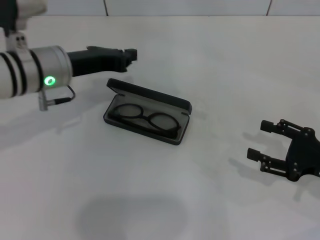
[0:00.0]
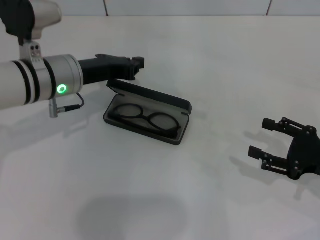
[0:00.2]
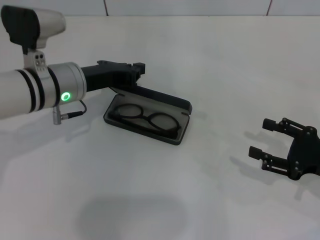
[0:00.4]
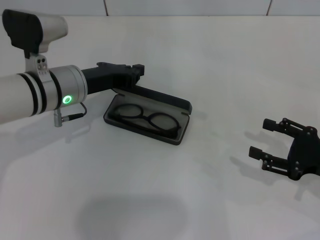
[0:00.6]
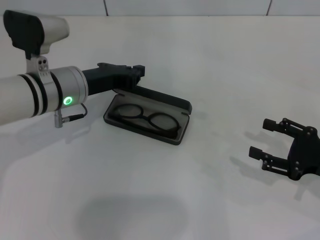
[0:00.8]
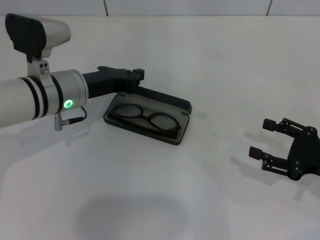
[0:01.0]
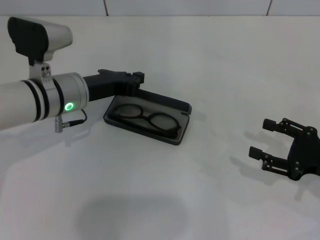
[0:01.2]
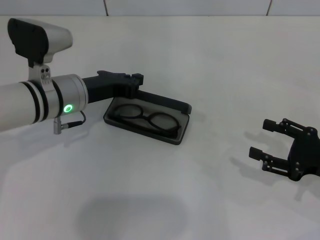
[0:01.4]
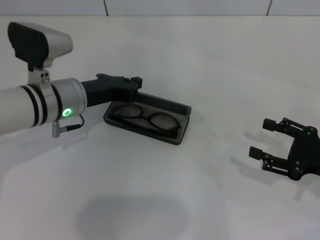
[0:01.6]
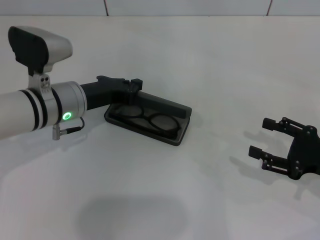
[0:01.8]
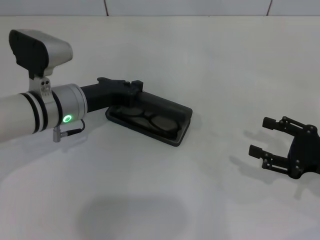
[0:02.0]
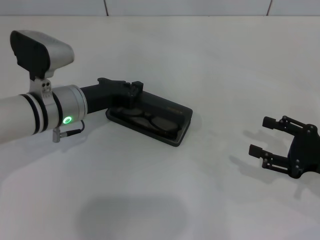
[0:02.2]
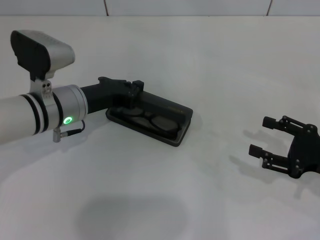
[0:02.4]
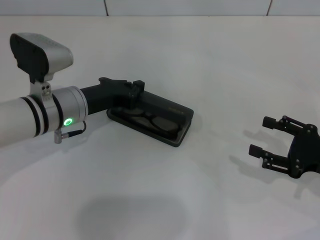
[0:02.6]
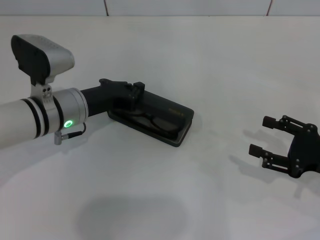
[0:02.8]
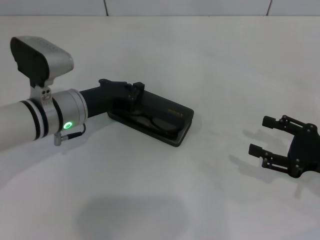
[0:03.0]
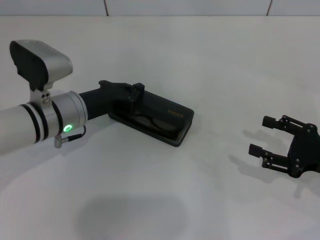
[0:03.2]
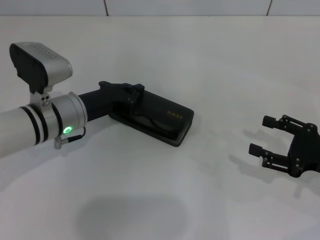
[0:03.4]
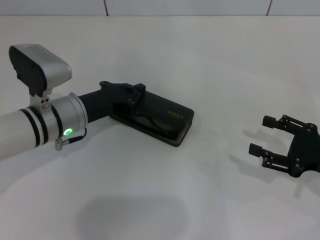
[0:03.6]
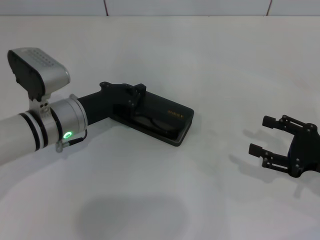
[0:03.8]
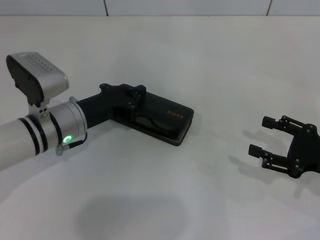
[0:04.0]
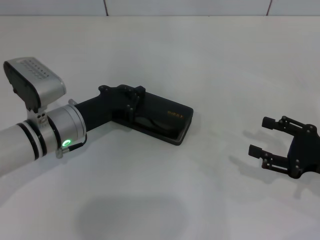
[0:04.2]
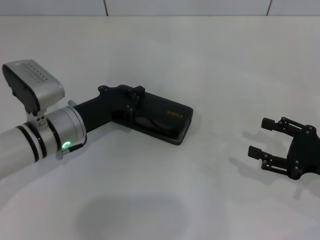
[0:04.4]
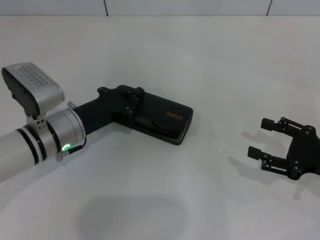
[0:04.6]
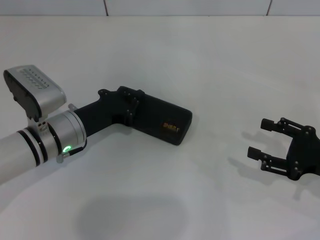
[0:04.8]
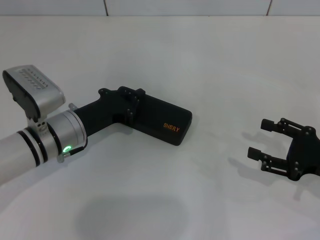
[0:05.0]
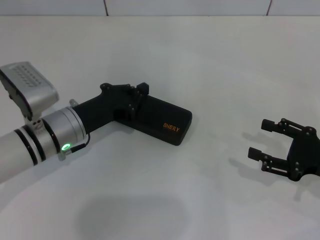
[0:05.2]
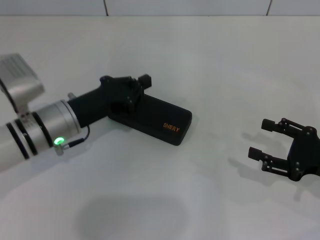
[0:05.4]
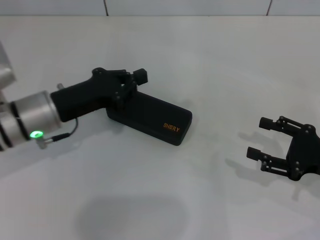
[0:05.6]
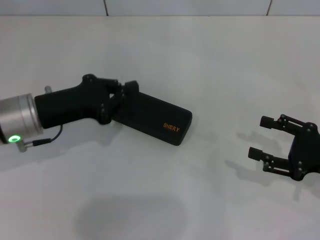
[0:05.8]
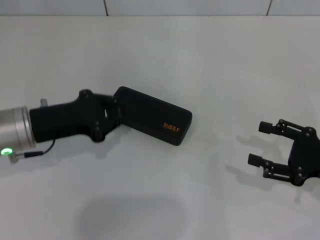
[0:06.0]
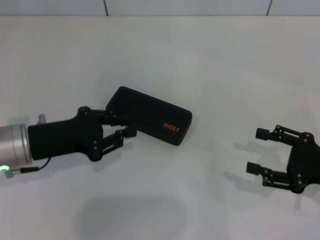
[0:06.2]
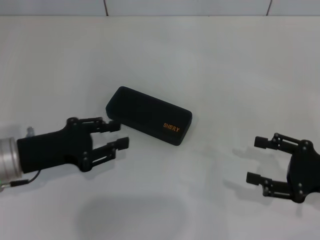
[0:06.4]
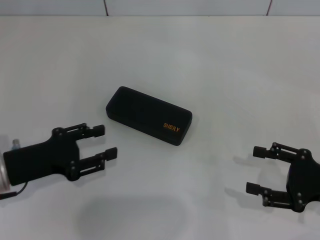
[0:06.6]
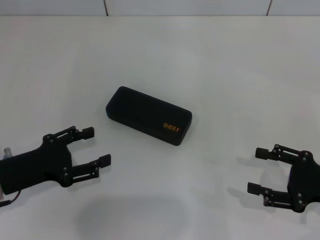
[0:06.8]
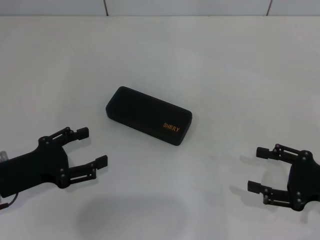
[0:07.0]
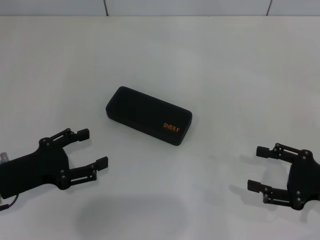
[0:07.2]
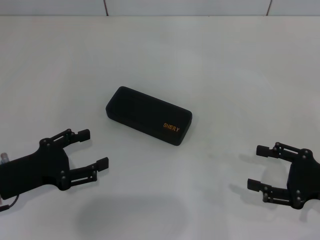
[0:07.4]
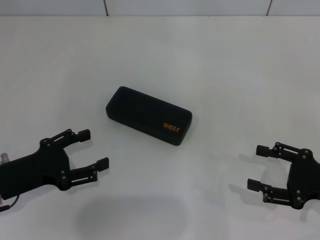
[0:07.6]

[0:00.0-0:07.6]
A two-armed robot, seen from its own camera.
Step, 0:00.0 to 0:04.8: Close the glasses case with your left hand.
0:00.0 to 0:01.6: There are only small adjustments of the grippers.
0:01.6 to 0:04.6: The grippers move only a little.
0:04.6 to 0:06.0: The left gripper goes approximately 5 cm to the left and upward.
0:06.0 to 0:07.6: The left gripper heads backward, covering some 10 cm, and opens up.
